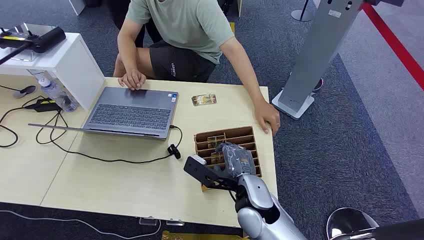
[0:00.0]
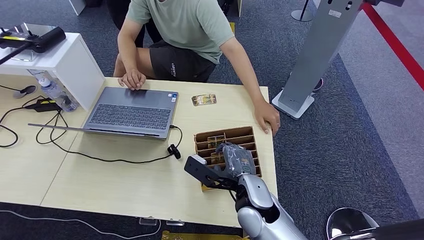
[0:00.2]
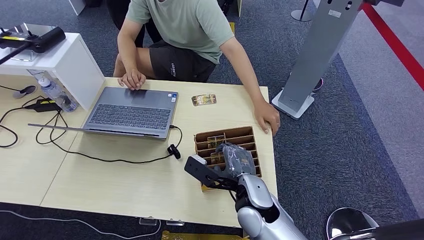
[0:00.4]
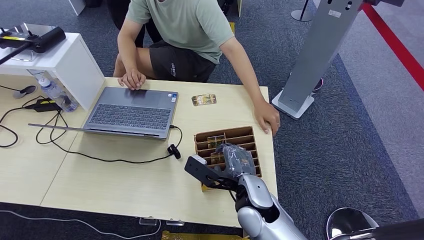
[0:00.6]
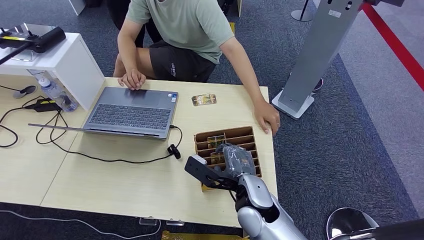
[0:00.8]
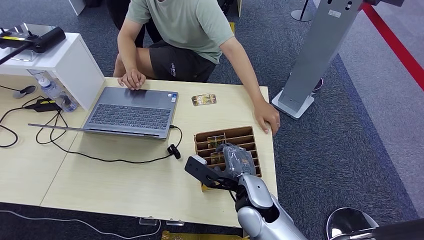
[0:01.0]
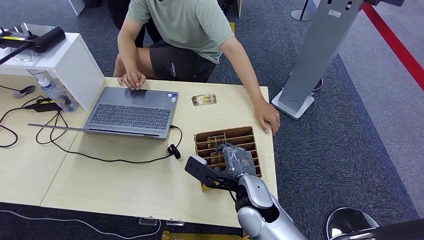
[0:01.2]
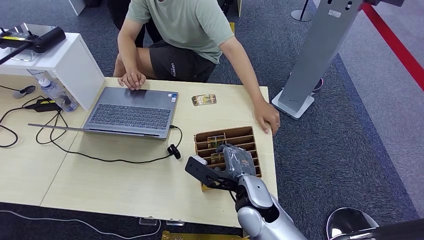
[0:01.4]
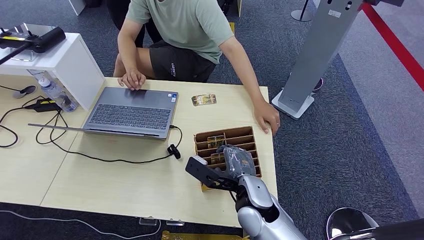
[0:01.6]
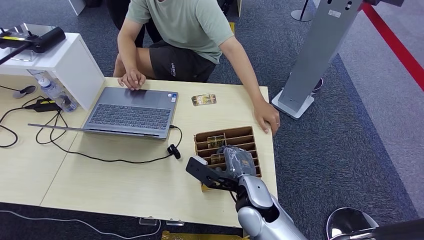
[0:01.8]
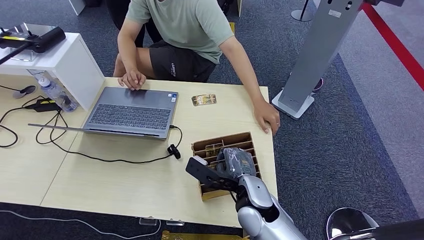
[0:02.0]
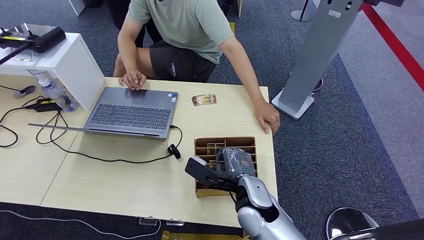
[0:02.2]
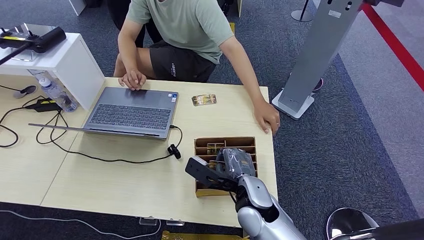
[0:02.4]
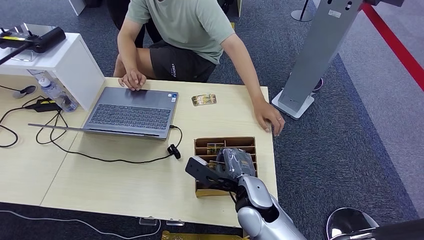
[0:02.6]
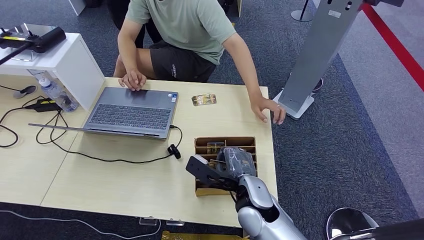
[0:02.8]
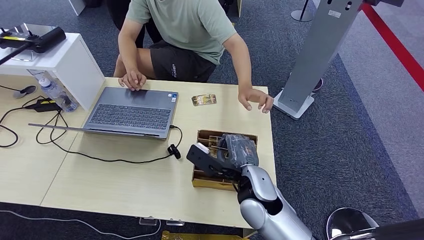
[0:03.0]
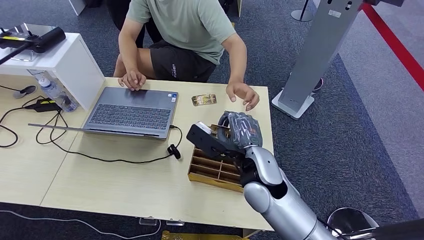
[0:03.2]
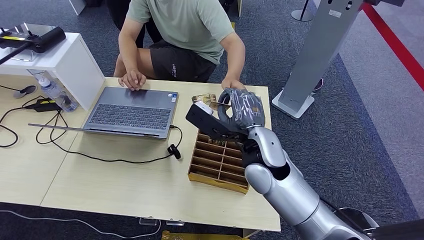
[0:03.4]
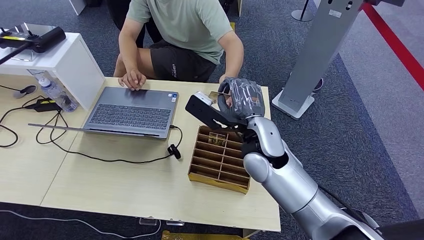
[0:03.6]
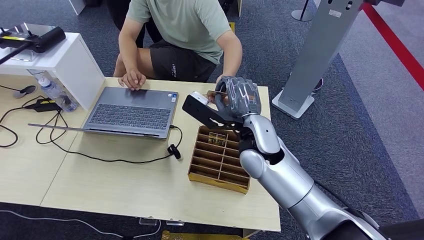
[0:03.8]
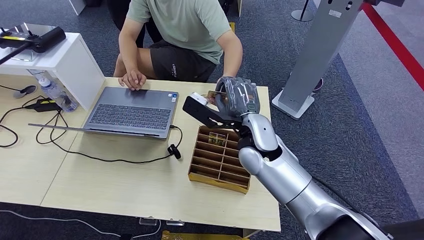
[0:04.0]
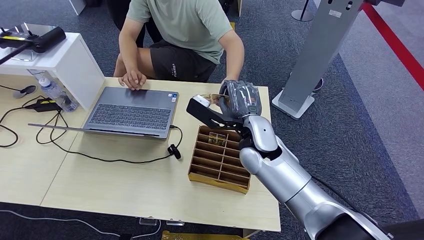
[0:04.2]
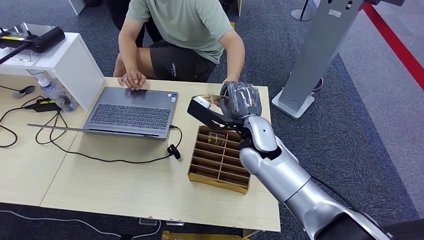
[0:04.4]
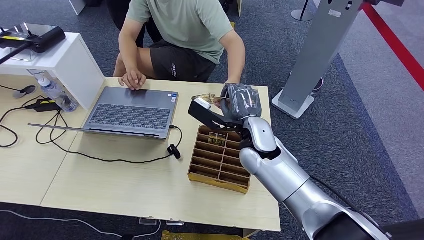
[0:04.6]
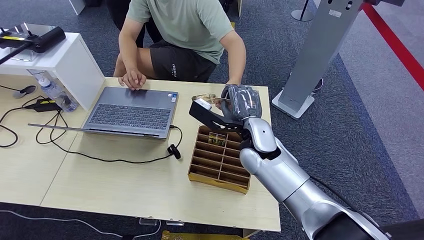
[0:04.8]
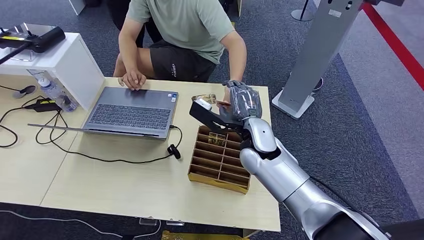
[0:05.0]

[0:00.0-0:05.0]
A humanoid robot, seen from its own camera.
Step, 0:00.0 to 0:03.4: Pick up the room card from the card holder.
Step, 0:03.8 to 0:04.8: Hand the room card to the target.
0:01.6 to 0:03.4: The right hand moves upward and forward, some 10 cm.
0:03.4 to 0:05.0: The right hand goes about 5 cm forward.
